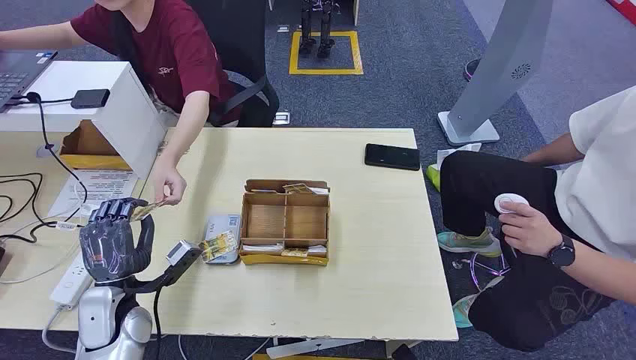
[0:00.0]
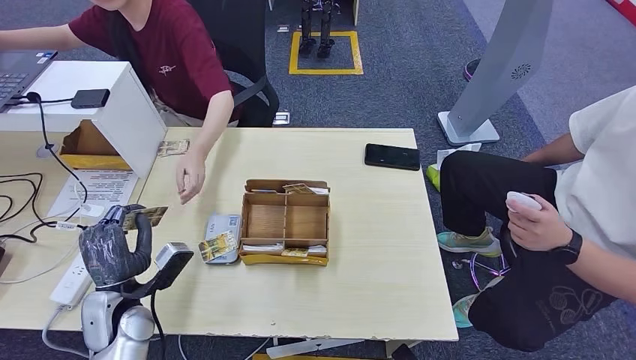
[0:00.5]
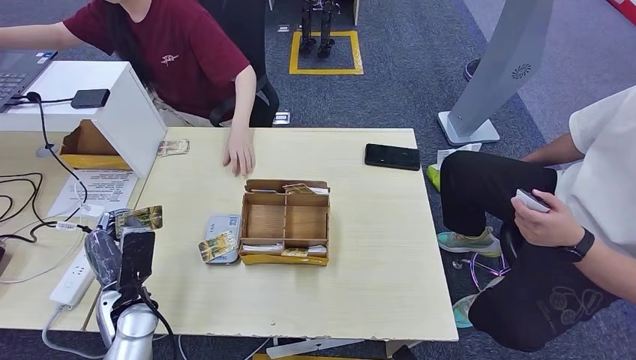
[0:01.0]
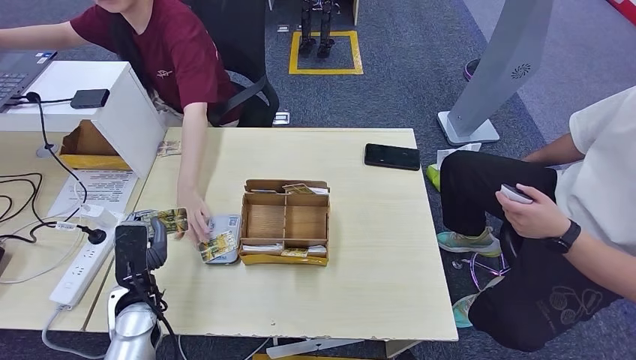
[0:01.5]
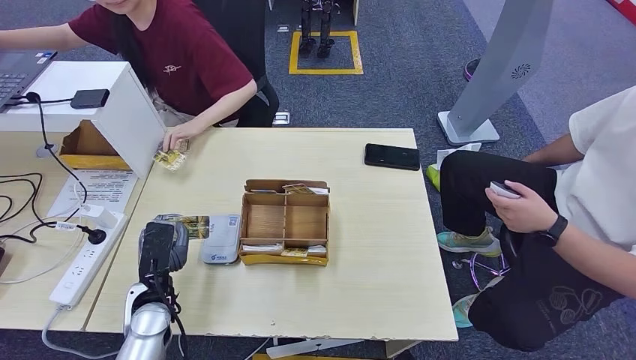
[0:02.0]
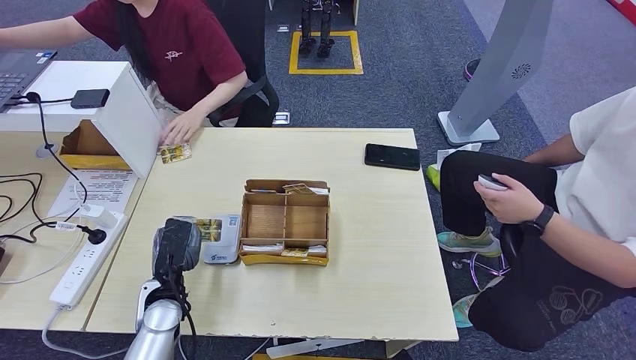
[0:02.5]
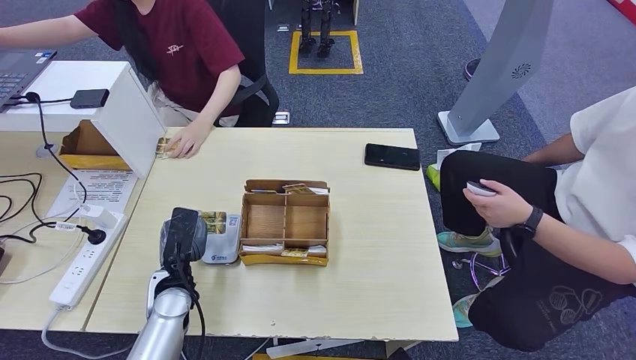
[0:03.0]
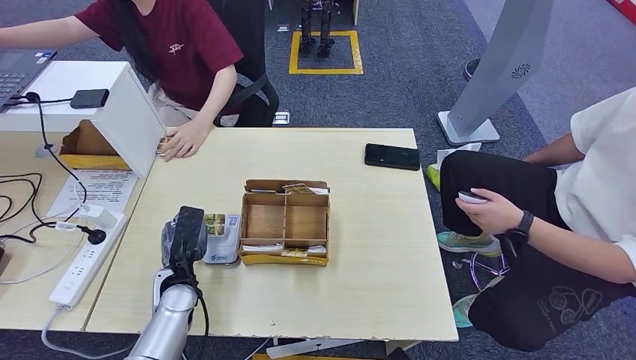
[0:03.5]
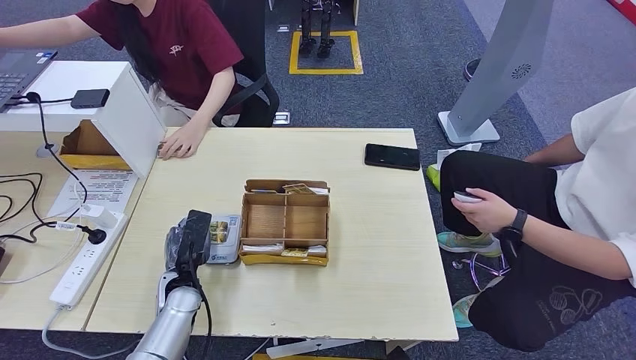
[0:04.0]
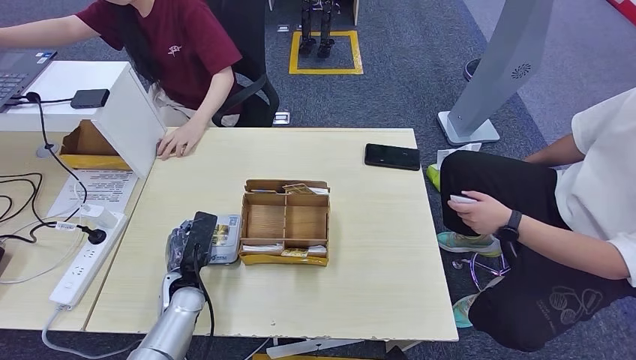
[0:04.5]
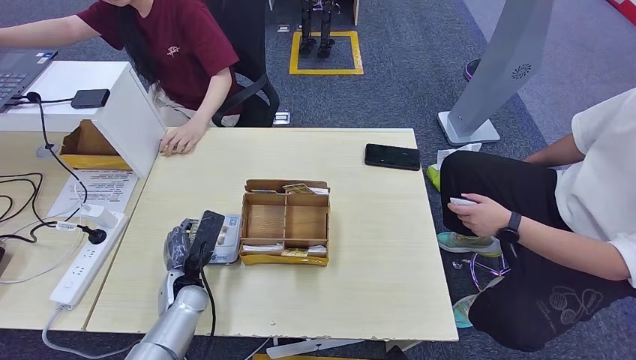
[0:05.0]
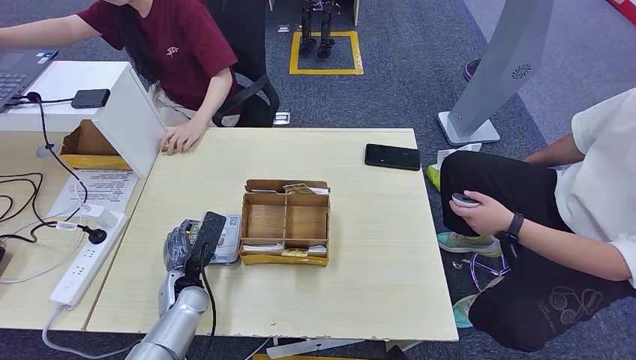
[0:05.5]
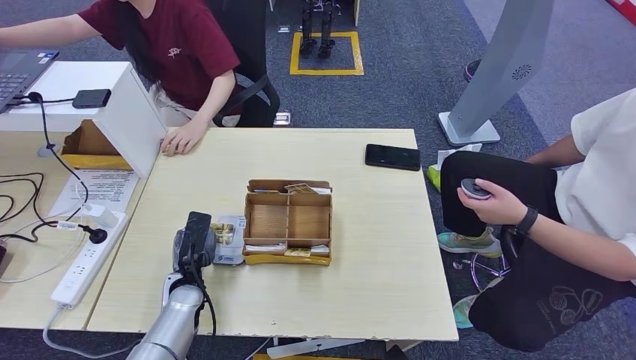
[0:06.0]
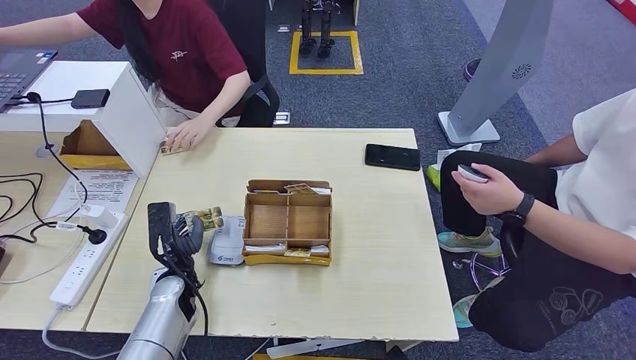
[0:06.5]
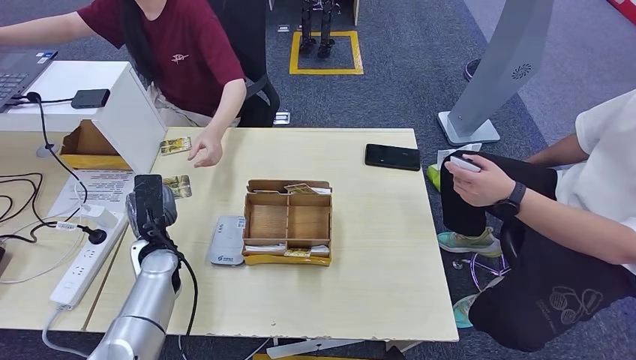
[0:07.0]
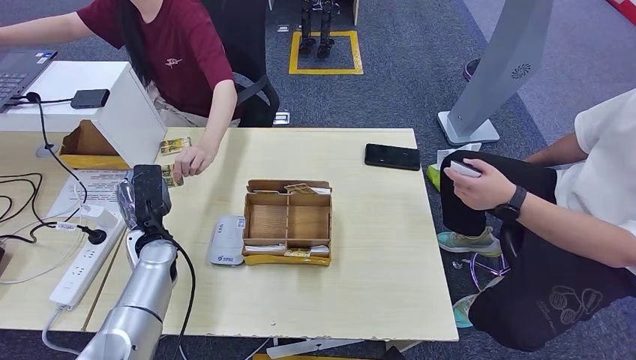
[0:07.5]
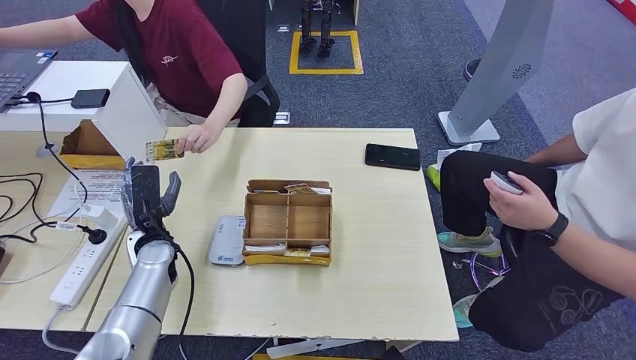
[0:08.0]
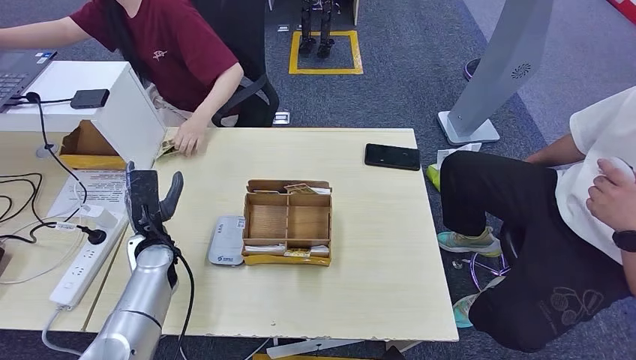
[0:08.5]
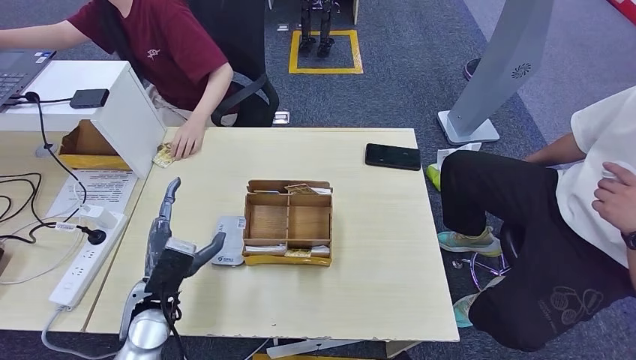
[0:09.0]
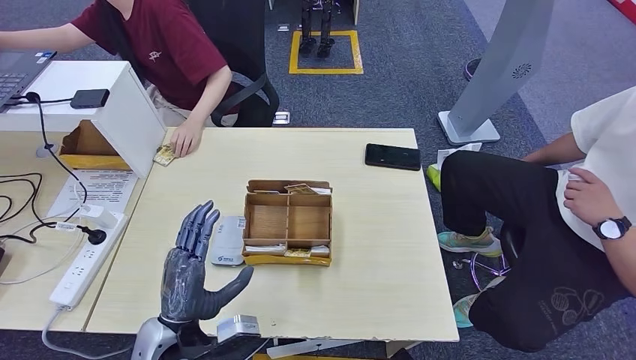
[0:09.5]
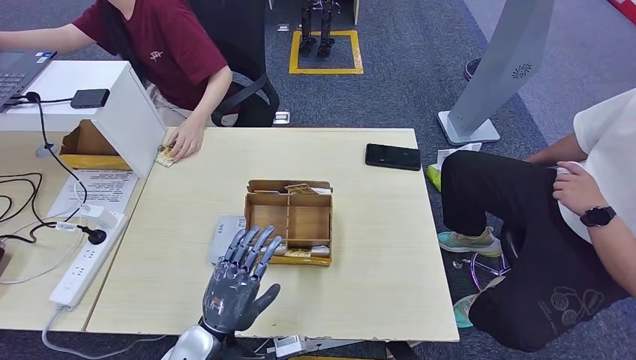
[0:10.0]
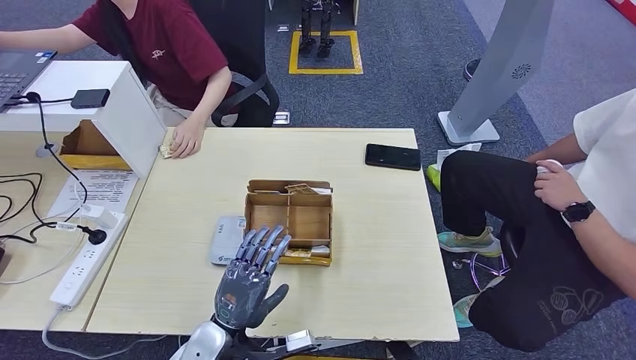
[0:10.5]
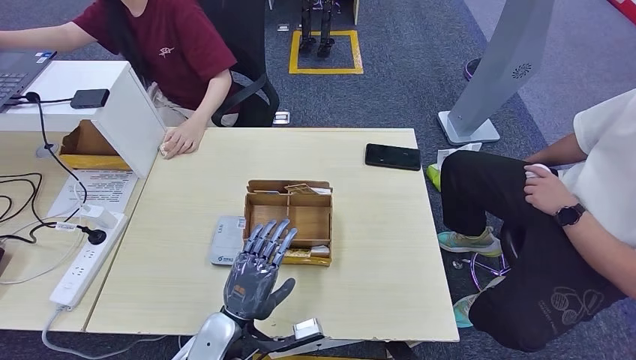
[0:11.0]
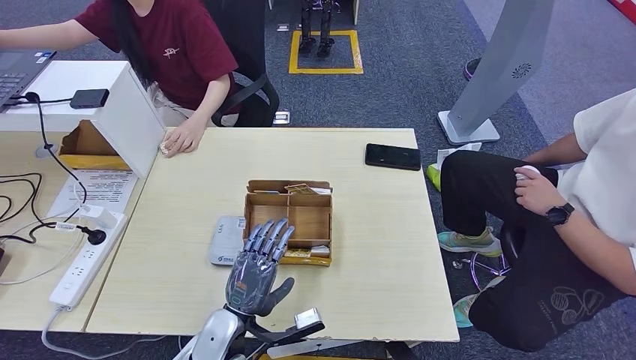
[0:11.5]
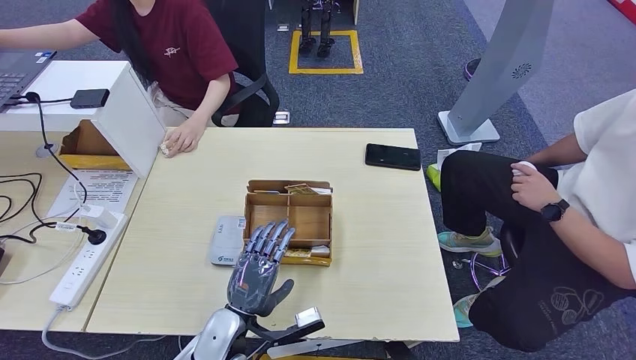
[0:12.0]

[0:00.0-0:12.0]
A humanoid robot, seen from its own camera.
Step, 0:00.5 to 0:04.0: Place the ID card on the card reader.
Step, 0:04.5 to 0:07.5: Hand the ID card to the person.
0:02.0 to 0:04.0: The left hand shifts by about 5 cm.
0:04.0 to 0:06.0: The hands stay close to where they were, moving slightly.
0:06.0 to 0:08.0: The left hand moves upward and forward, about 10 cm.
0:08.0 to 0:10.0: The left hand heads backward and to the right, covering some 25 cm.
0:10.0 to 0:12.0: The left hand changes place by approximately 5 cm.

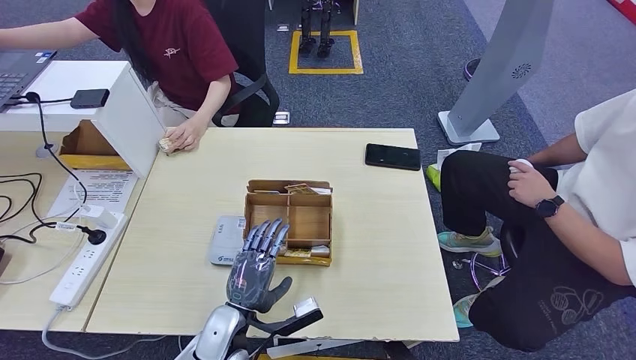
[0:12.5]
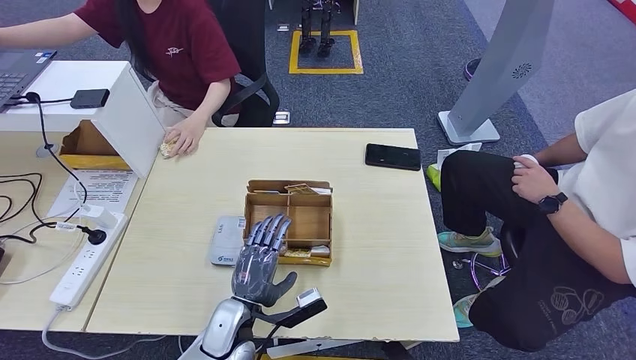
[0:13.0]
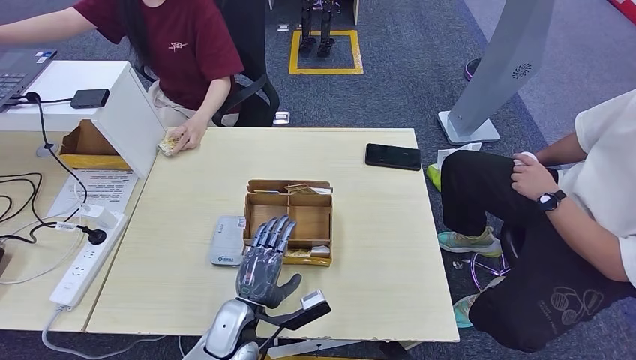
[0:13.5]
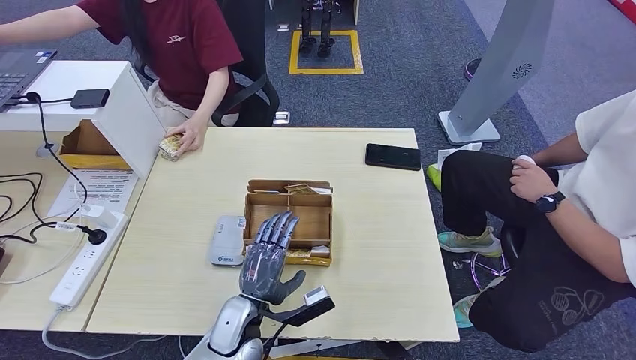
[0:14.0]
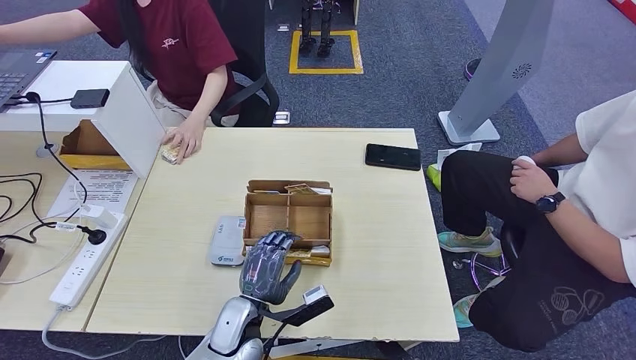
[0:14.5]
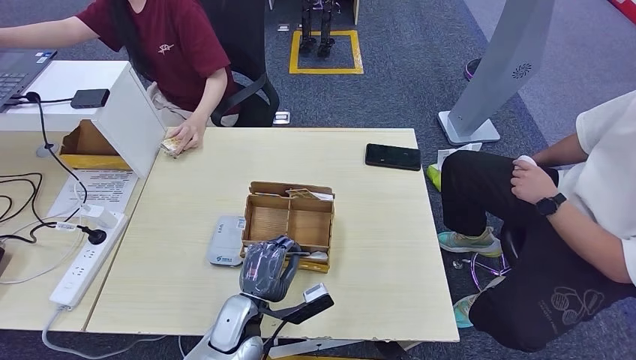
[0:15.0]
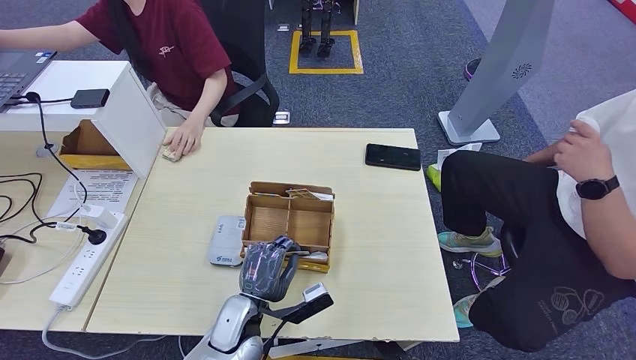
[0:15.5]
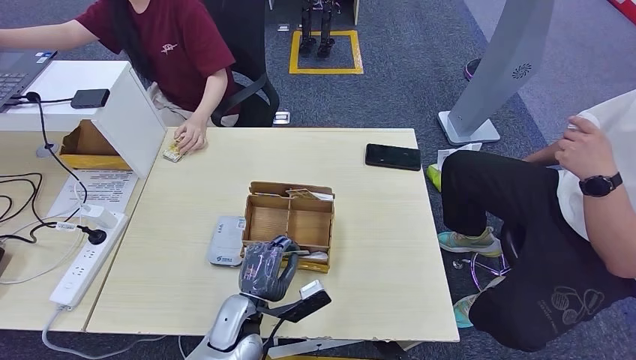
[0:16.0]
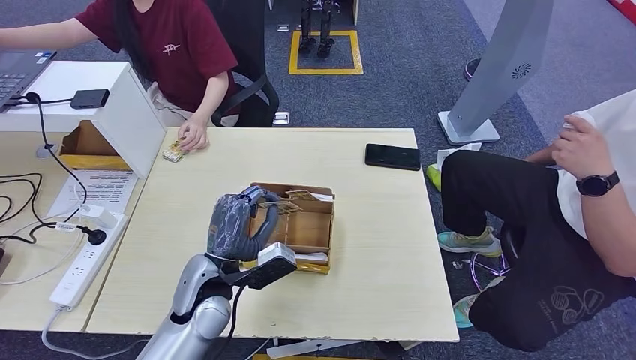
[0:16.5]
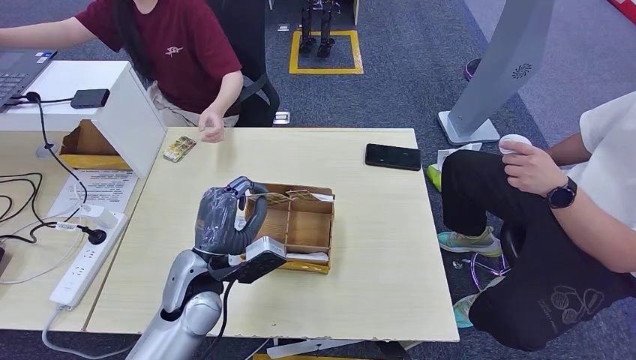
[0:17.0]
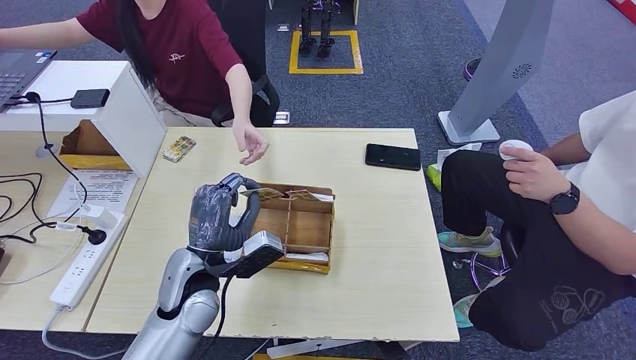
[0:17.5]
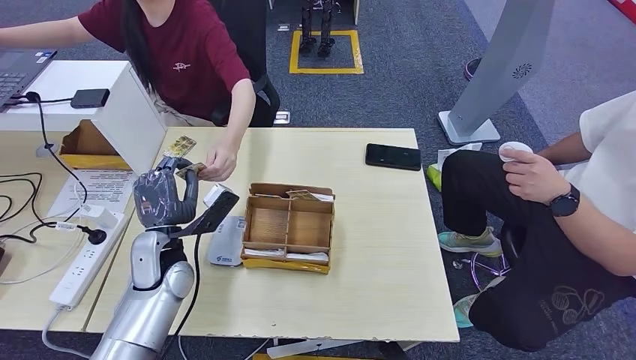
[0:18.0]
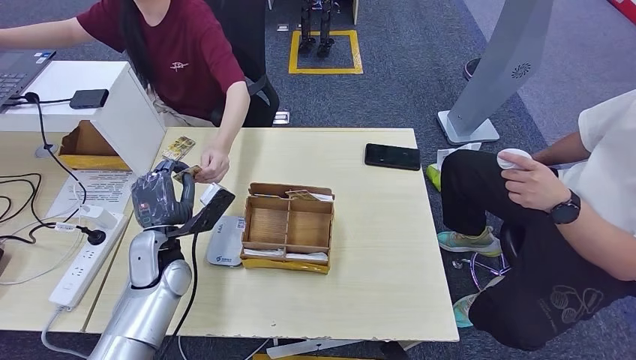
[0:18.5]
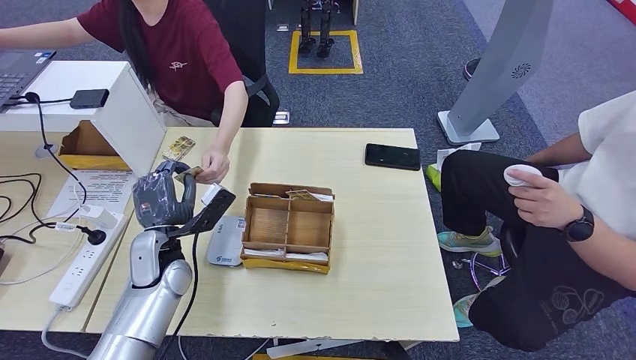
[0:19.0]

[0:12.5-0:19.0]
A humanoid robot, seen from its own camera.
Step, 0:13.5 to 0:16.5: Pick up the room key from the key card box.
Step, 0:17.0 to 0:19.0: Hand the room key to the person.
0:12.5 to 0:14.5: The hands make only small movements.
0:14.5 to 0:17.0: The left hand goes some 10 cm upward.
0:17.0 to 0:19.0: The left hand goes roughly 10 cm to the left and forward.

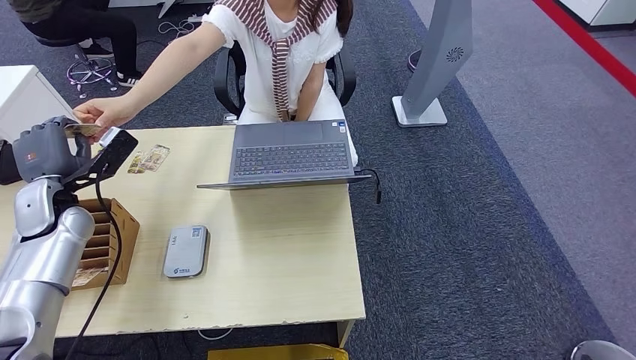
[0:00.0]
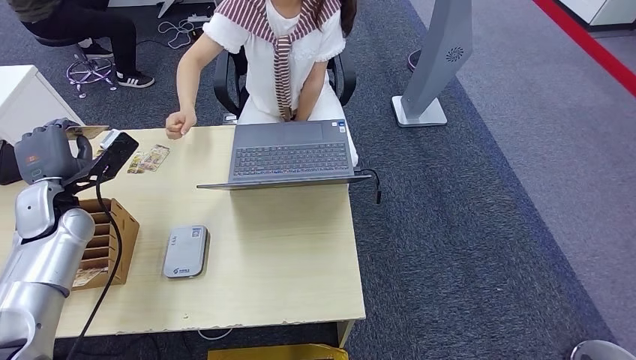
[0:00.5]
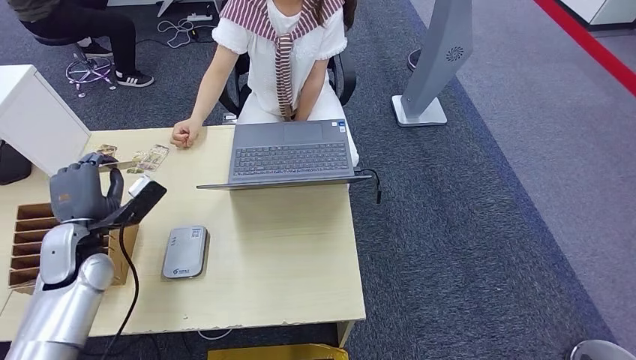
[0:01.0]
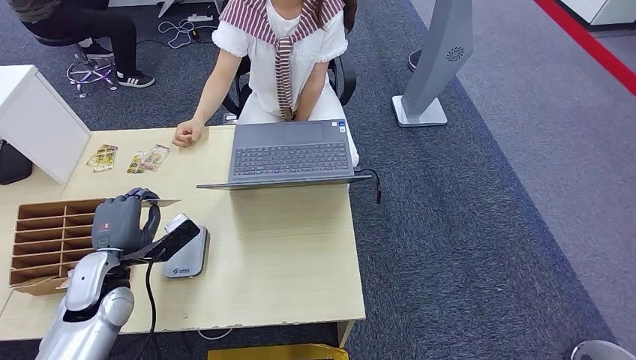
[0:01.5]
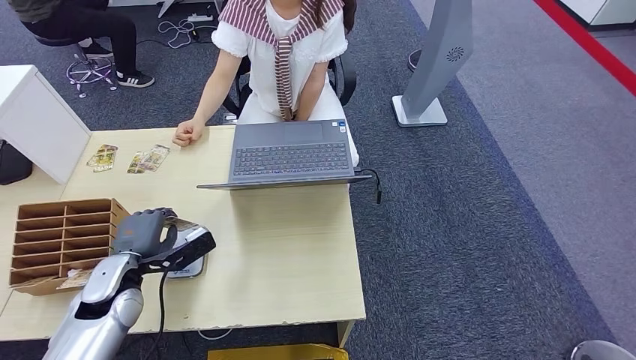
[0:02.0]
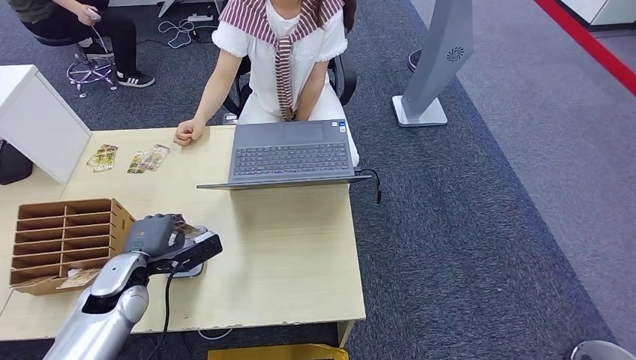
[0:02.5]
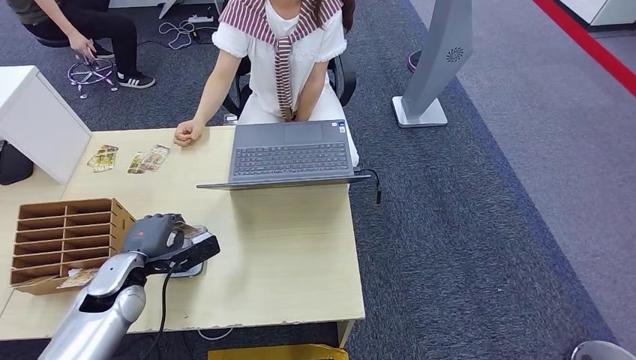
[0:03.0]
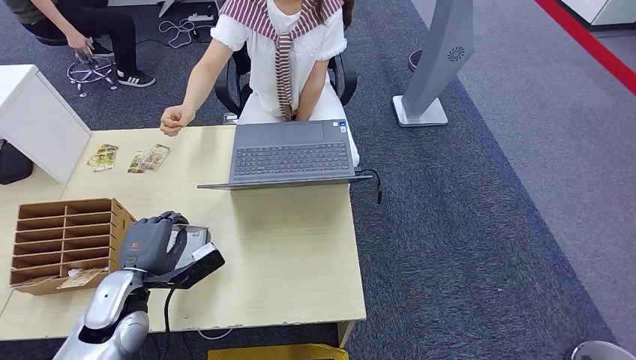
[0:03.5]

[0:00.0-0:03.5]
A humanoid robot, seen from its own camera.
Step, 0:00.5 to 0:02.5: Place the ID card on the card reader.
0:00.0 to 0:02.0: The left hand travels backward, downward and to the right by some 15 cm.
0:02.0 to 0:03.5: There are only small adjustments of the hands.
